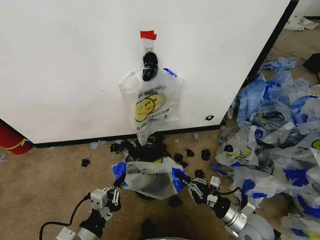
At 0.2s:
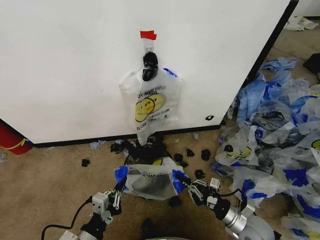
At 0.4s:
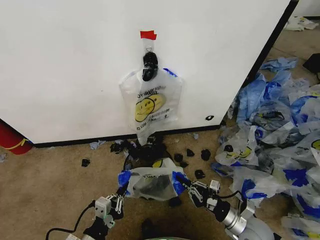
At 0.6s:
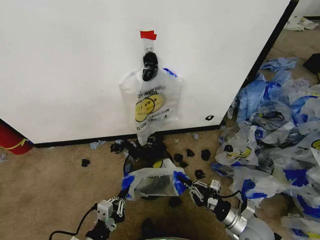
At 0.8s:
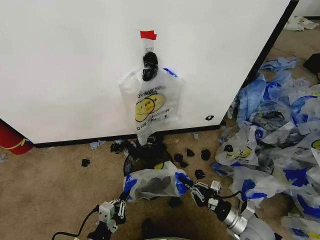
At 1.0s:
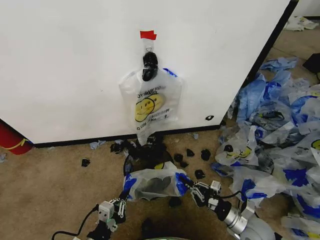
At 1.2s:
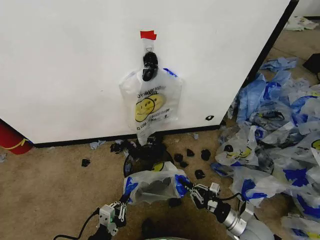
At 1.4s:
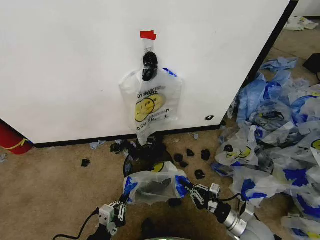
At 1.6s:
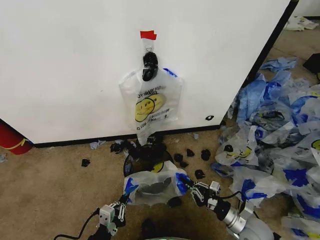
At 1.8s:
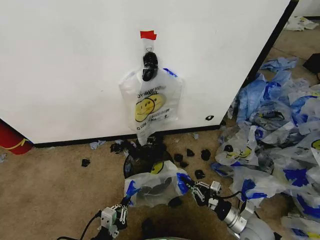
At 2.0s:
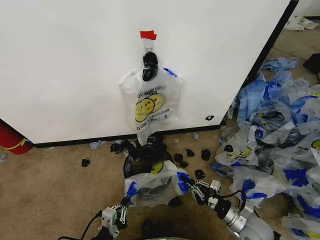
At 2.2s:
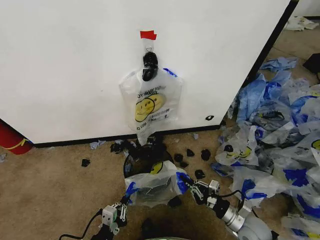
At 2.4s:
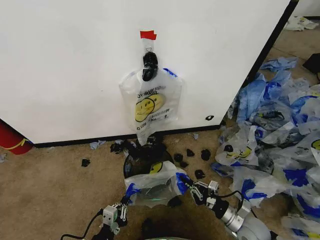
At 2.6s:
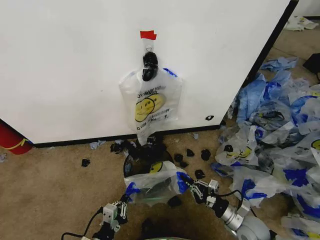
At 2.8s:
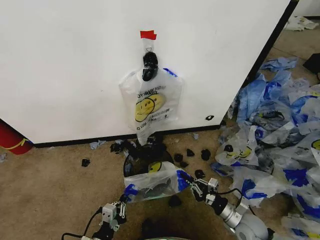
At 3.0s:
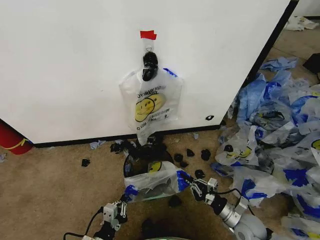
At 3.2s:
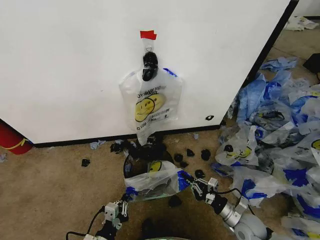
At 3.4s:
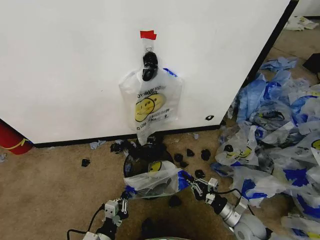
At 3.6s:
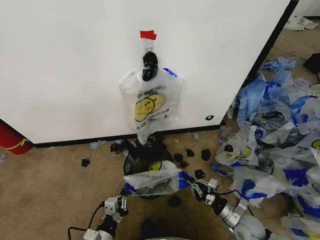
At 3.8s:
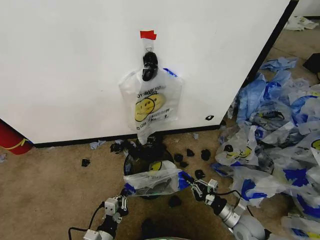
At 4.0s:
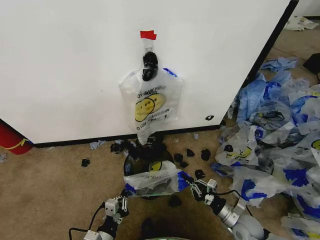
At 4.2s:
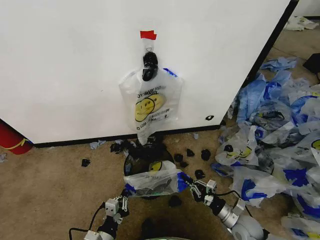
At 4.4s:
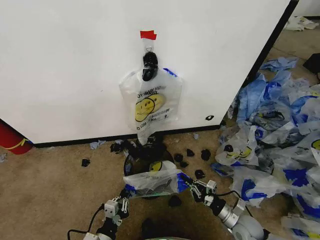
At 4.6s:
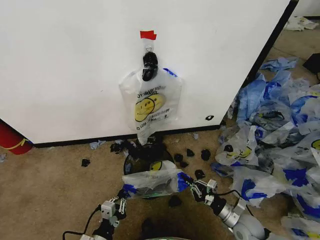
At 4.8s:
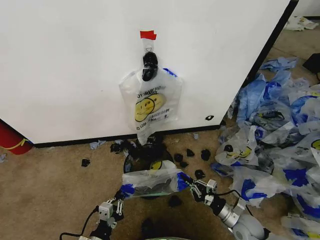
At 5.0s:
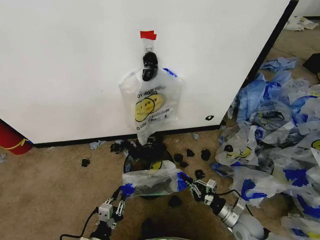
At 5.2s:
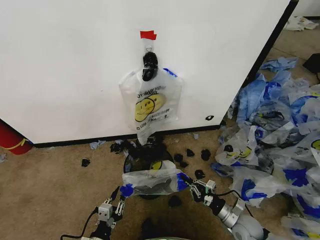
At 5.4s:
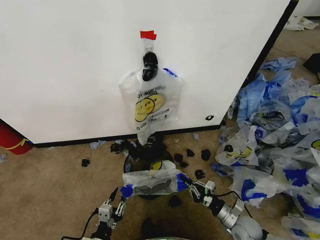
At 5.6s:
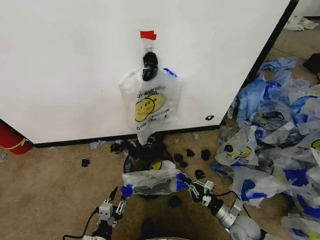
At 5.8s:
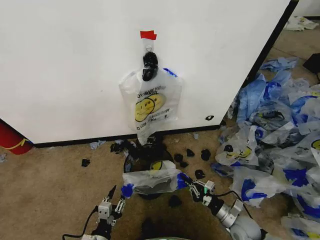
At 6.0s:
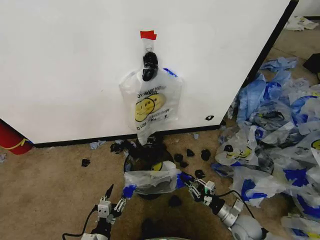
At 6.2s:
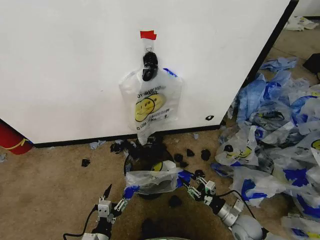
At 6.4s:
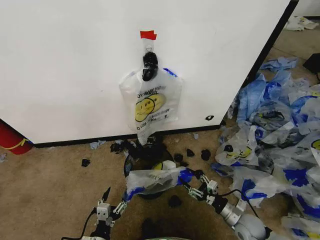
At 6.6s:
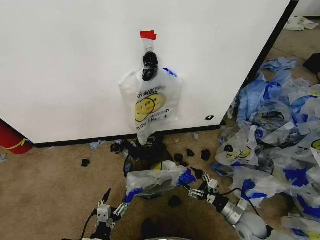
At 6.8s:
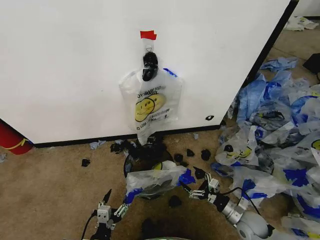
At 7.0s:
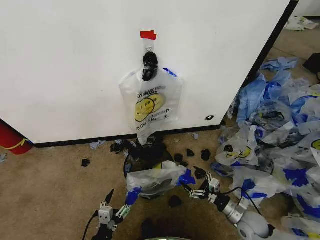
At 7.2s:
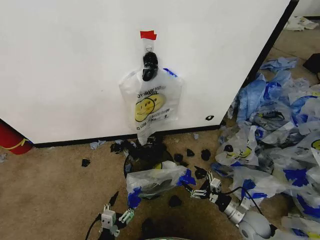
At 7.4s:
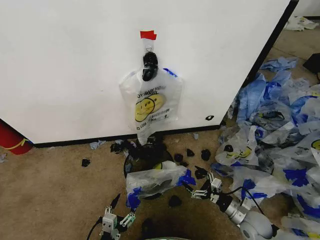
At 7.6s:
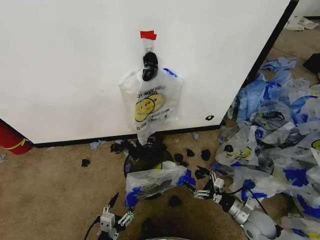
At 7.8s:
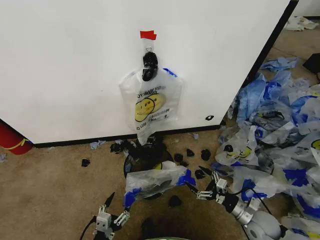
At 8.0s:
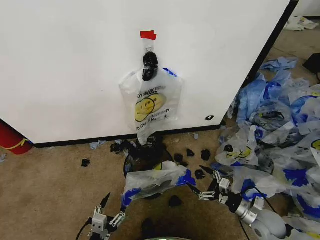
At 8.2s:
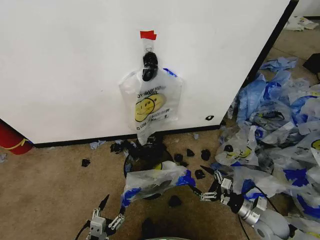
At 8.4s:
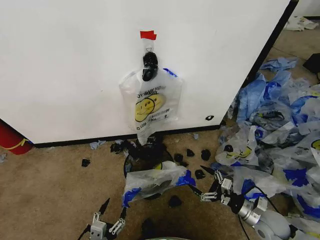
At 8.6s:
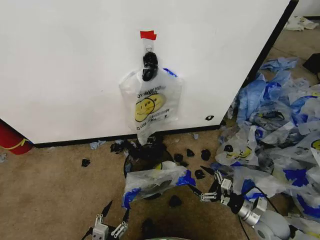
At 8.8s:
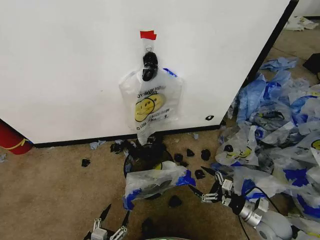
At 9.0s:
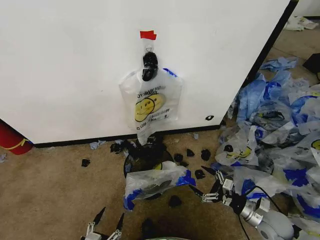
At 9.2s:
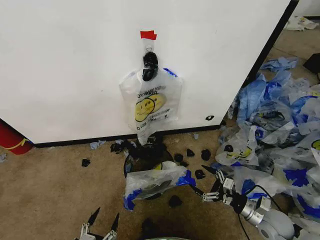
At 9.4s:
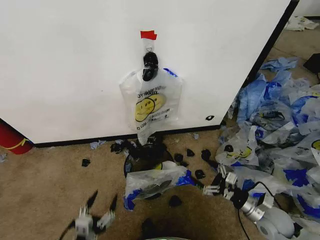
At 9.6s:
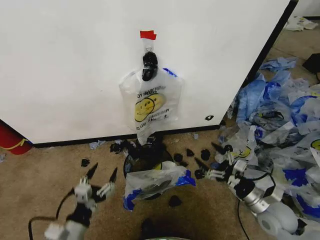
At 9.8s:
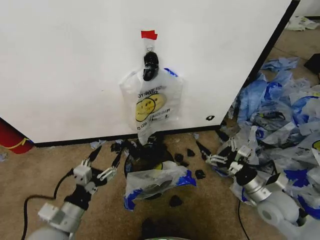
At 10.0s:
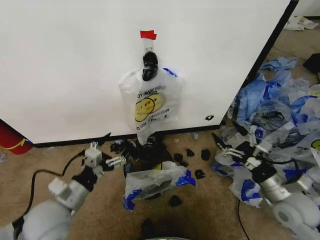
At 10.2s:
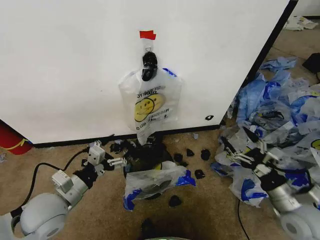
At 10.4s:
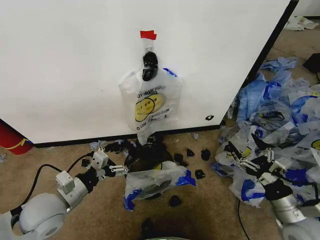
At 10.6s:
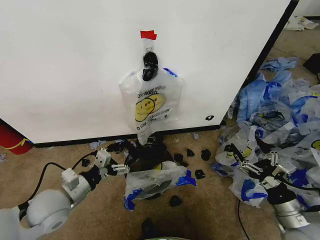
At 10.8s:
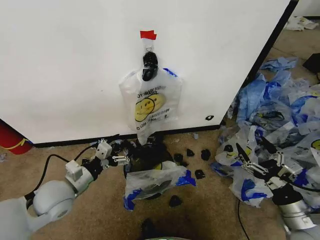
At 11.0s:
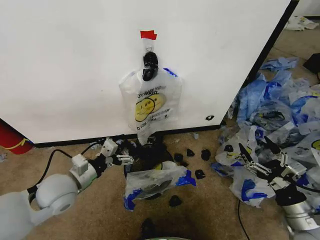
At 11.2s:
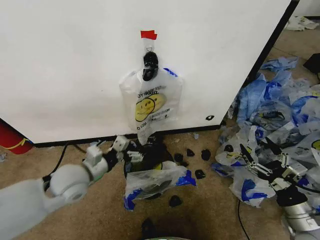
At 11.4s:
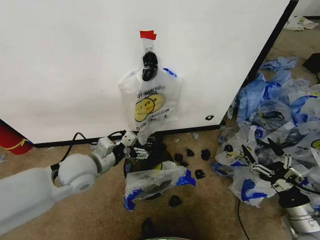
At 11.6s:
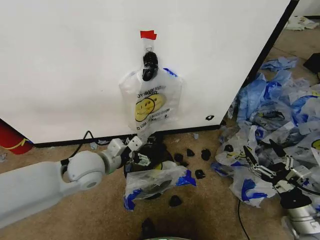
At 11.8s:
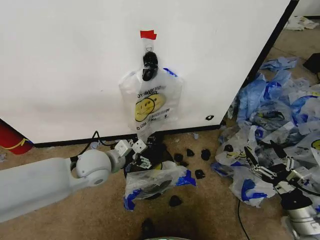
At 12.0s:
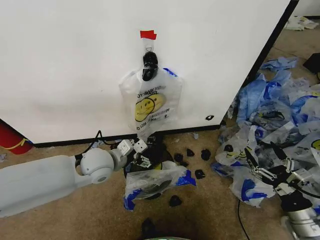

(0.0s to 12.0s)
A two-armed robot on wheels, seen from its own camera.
Task of the whole recording: Pick up the garbage bag from the wall and place it over the trash bin.
0.0s - 1.6s: The left gripper goes some 5 cm downward.
1.6s - 3.0s: There are only small adjustments of the grippers.
3.0s - 4.4s: The grippers move only a little.
4.4s - 6.0s: The left gripper opens.
6.0s - 7.6s: The right gripper opens up.
7.6s - 9.0s: The left gripper shifts about 5 cm backward.
9.0s - 10.4s: The left gripper is displaced forward and upward by some 25 cm. Meanwhile the right gripper goes about 10 cm upward.
10.4s - 12.0s: The left gripper travels forward and to the right by roughly 15 cm.

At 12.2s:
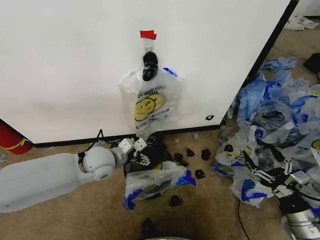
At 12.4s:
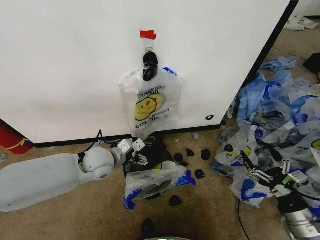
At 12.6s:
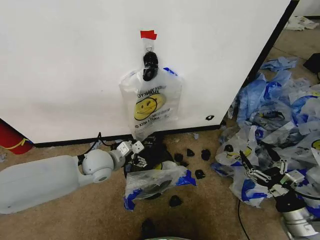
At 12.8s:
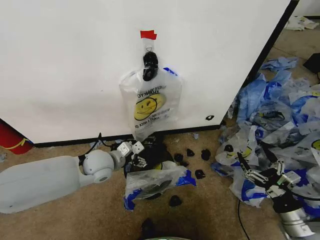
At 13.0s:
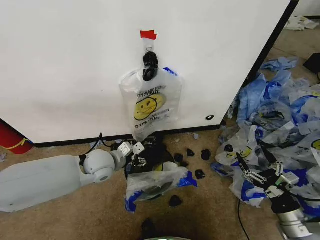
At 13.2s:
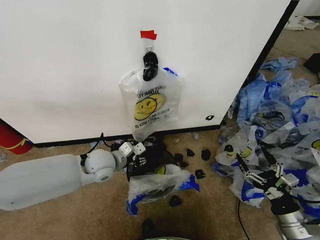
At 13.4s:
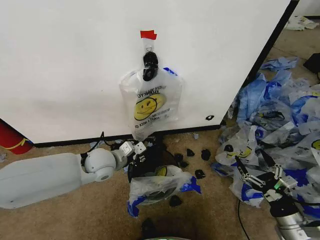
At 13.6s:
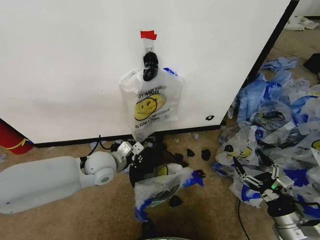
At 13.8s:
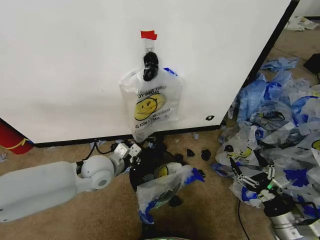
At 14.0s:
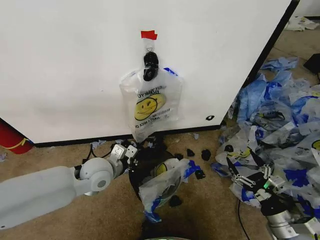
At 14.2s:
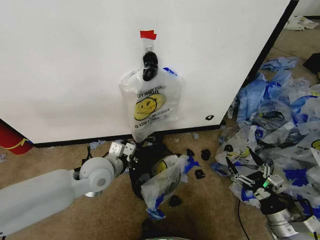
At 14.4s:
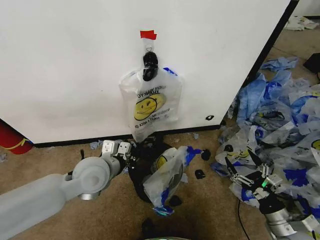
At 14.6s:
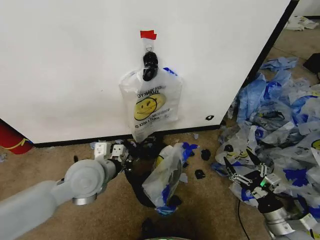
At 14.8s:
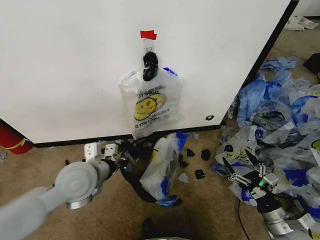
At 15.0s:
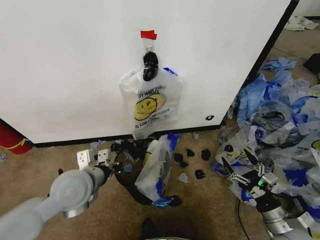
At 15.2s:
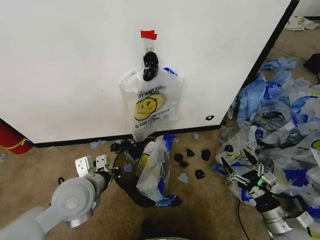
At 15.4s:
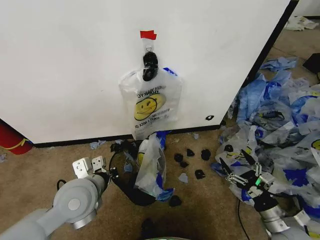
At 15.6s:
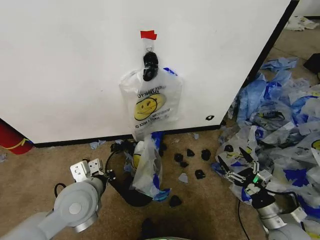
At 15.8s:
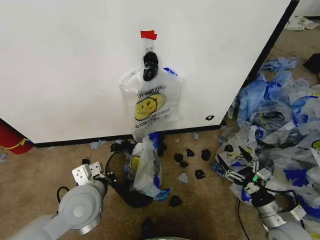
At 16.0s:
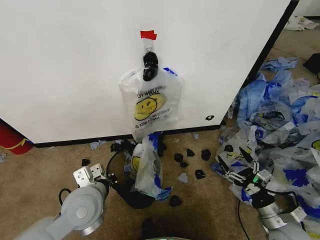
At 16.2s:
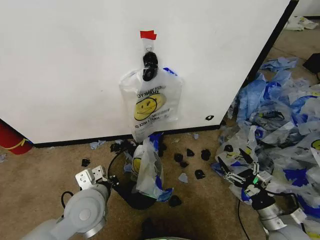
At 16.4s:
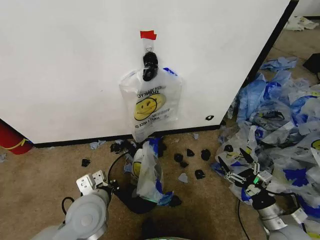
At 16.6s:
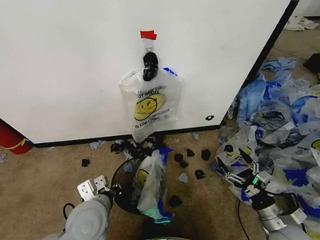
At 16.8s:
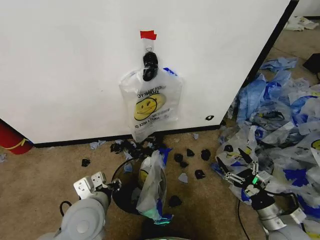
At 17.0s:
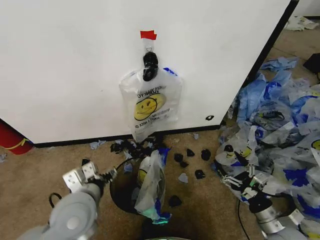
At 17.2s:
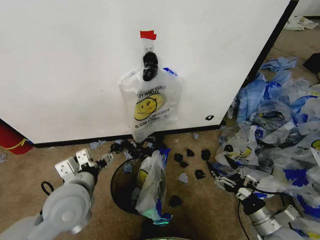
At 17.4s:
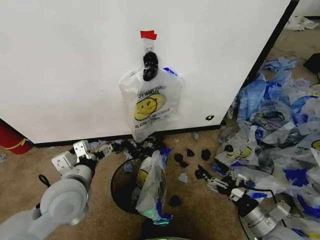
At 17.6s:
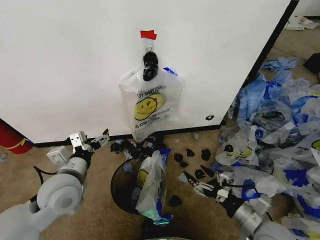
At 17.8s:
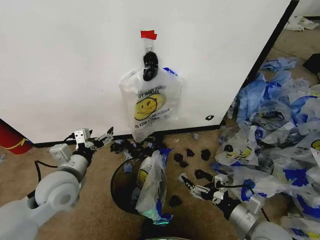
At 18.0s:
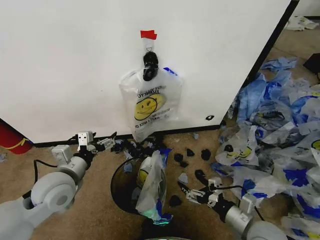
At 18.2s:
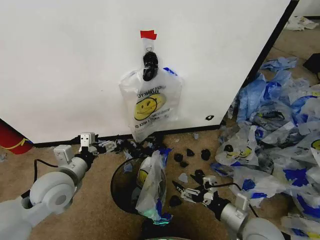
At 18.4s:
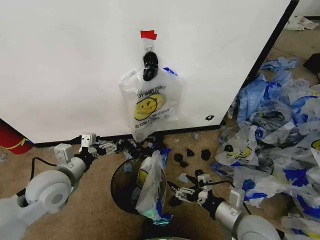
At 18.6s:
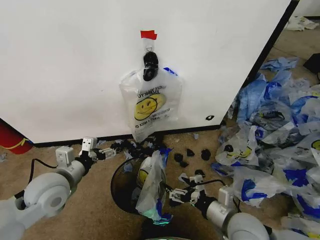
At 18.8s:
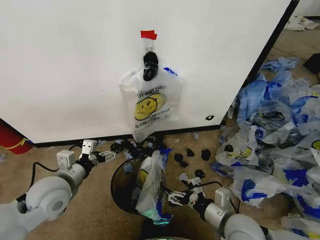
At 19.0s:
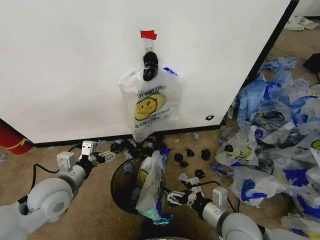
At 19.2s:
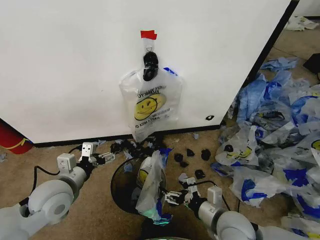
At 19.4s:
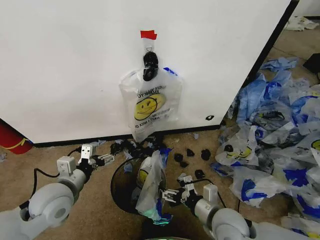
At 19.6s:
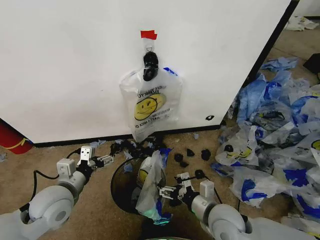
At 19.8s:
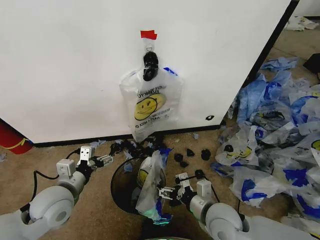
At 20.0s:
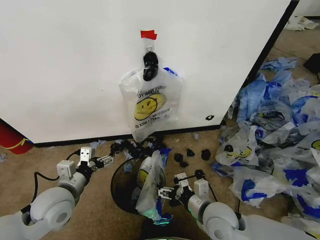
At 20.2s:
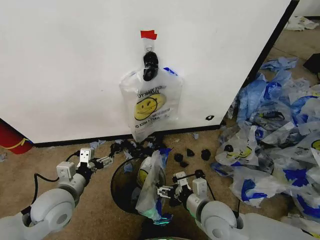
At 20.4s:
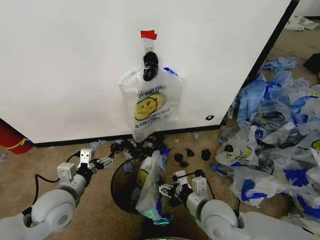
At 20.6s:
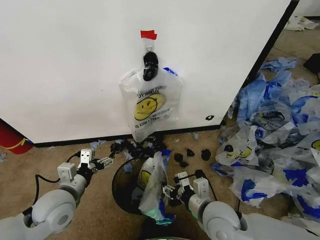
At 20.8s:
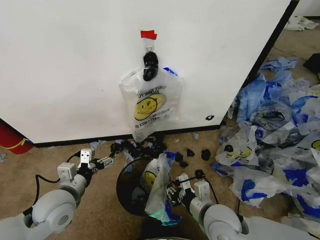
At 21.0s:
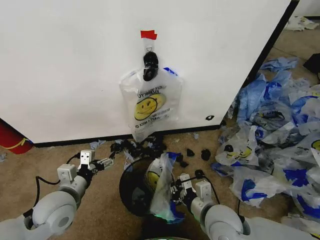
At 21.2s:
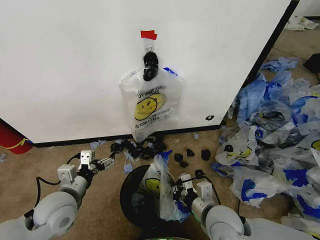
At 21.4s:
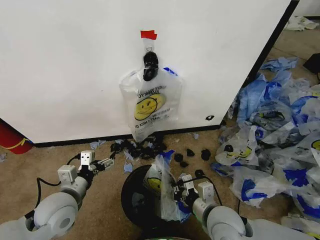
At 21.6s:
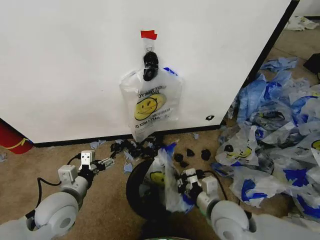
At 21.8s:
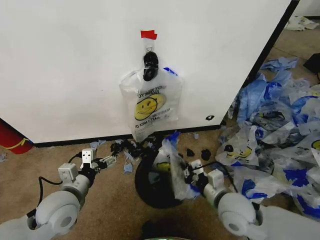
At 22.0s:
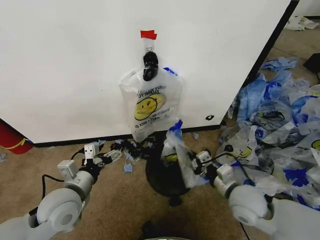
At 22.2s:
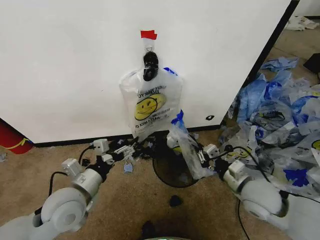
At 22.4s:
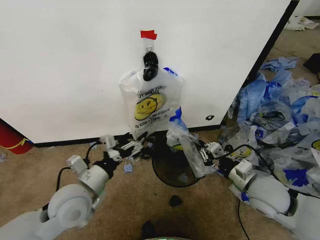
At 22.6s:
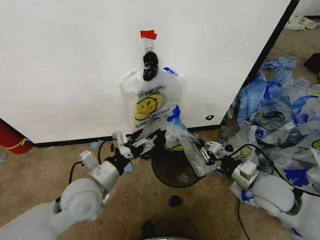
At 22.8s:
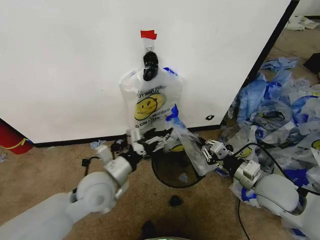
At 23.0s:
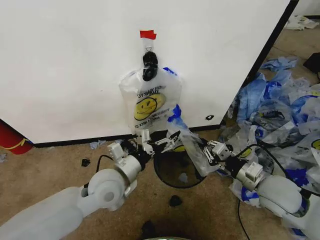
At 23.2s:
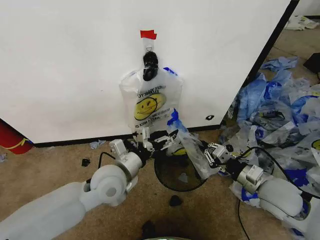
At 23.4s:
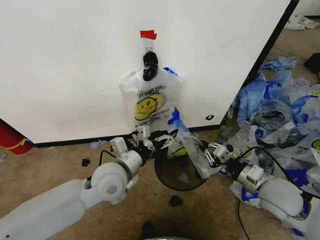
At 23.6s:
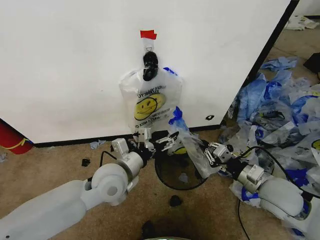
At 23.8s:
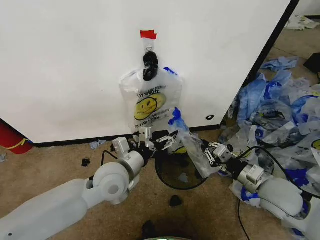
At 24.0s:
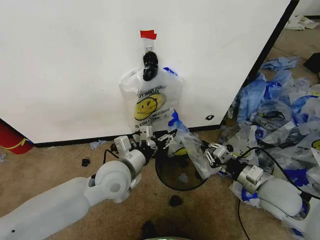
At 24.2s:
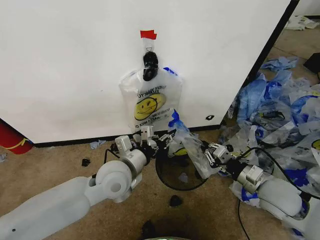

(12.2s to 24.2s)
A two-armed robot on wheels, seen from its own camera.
Task of the whole recording: Pick up the garbage bag from the wall and place it over the trash bin.
12.2s - 13.8s: The left gripper closes up.
13.8s - 15.2s: The left gripper shifts some 10 cm backward.
15.2s - 16.6s: The left gripper is displaced downward by about 5 cm.
16.6s - 18.2s: The right gripper heads to the left and upward, covering approximately 10 cm; the left gripper travels to the left and forward by roughly 10 cm, and opens.
18.2s - 19.8s: The right gripper heads to the left, covering some 10 cm.
19.8s - 21.2s: The right gripper closes up.
21.2s - 22.6s: The left gripper heads to the right, covering some 10 cm. The right gripper goes about 15 cm to the right and forward.
22.6s - 24.2s: The left gripper travels to the right by approximately 5 cm, and closes.
